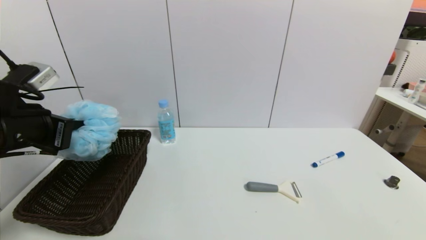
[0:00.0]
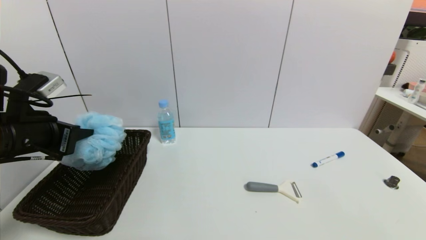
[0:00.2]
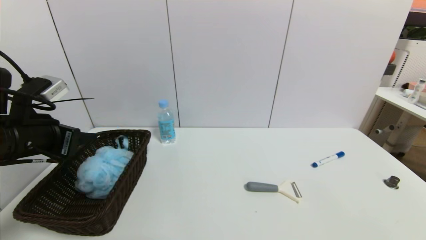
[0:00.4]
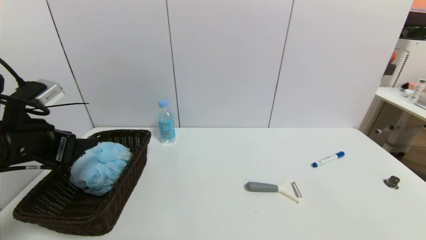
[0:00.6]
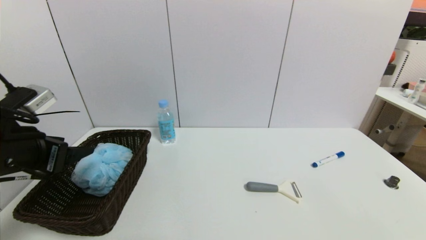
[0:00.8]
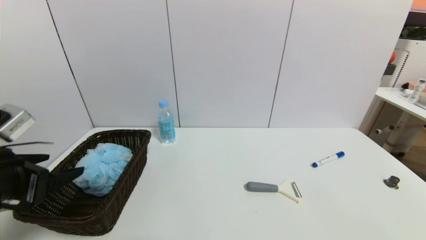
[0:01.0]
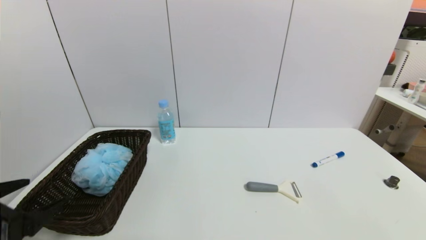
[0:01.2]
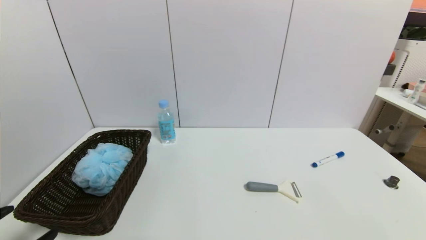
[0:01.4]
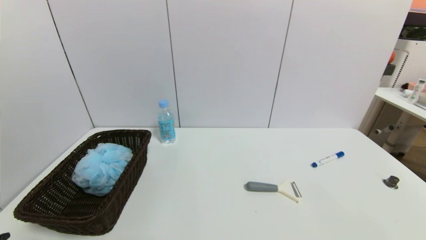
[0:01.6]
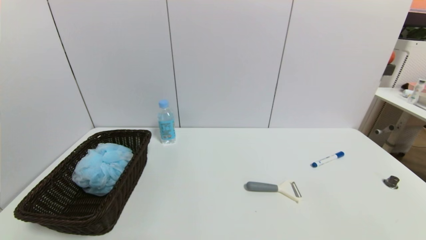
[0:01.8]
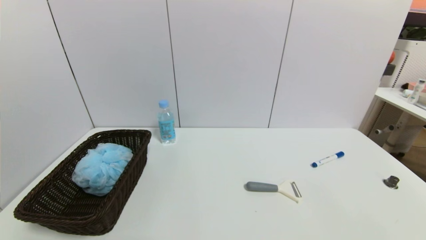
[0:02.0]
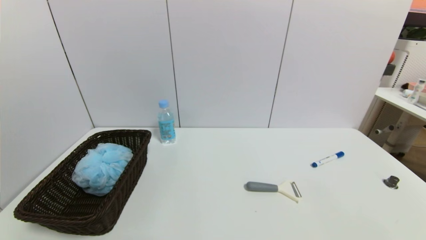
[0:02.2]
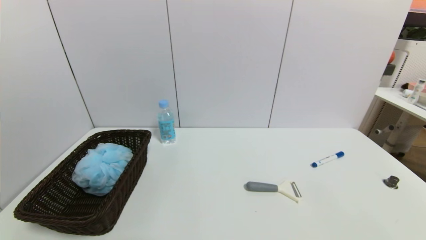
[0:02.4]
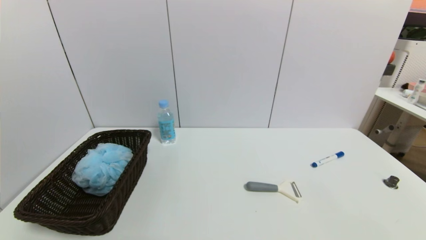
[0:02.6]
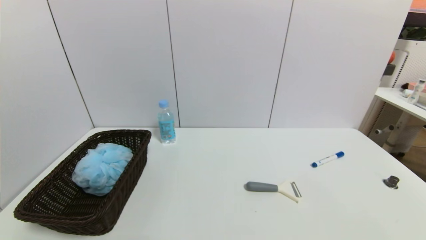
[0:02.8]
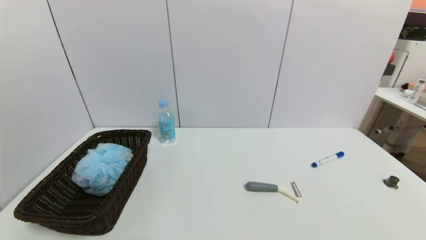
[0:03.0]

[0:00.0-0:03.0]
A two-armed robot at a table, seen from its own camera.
Task of the whole recording: use a gripper to pick the target object and place on the brown basket.
0:00.0 to 0:01.6: The left gripper heads backward and downward, covering roughly 25 cm, and opens its fingers.
